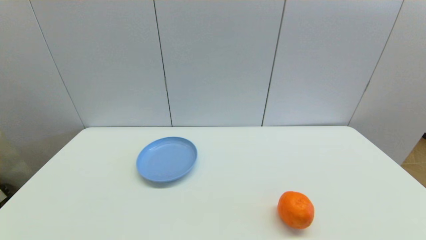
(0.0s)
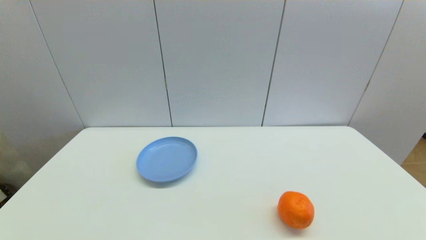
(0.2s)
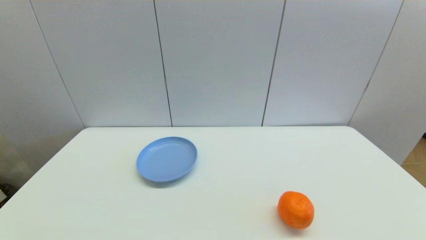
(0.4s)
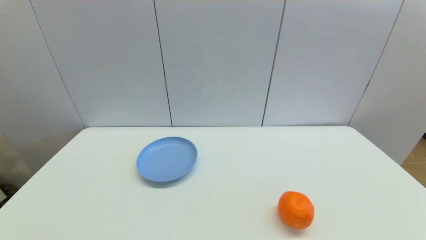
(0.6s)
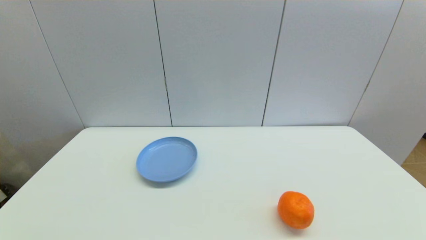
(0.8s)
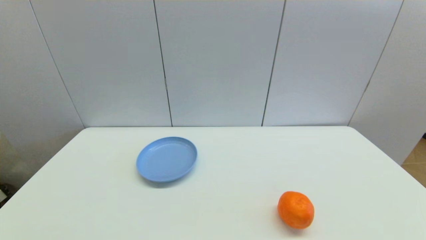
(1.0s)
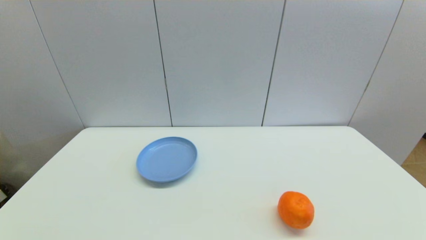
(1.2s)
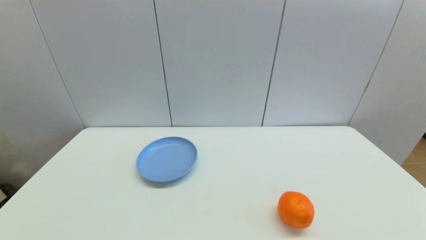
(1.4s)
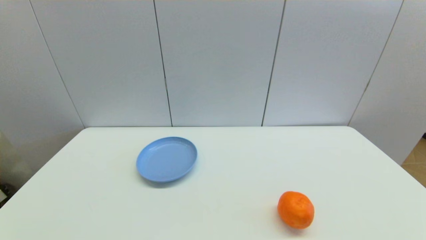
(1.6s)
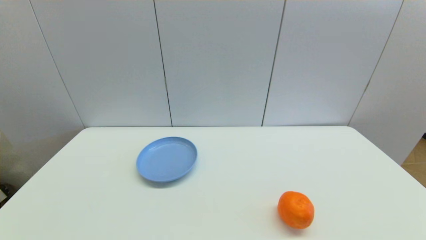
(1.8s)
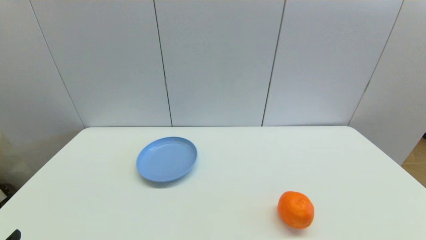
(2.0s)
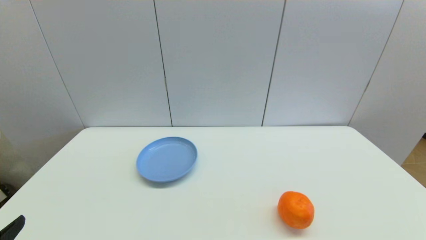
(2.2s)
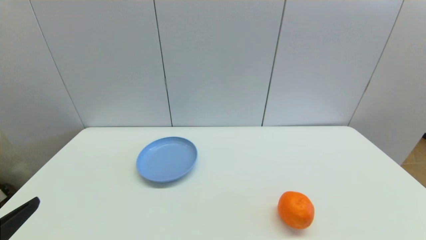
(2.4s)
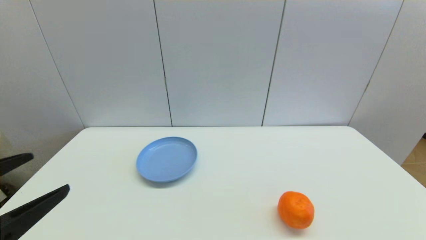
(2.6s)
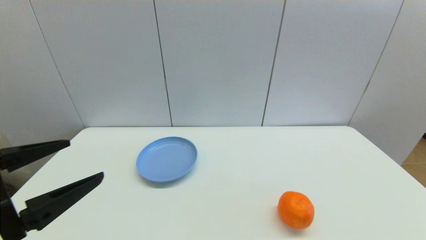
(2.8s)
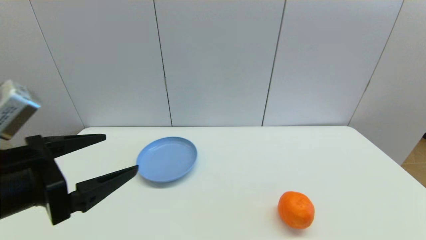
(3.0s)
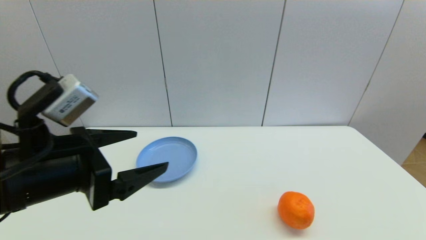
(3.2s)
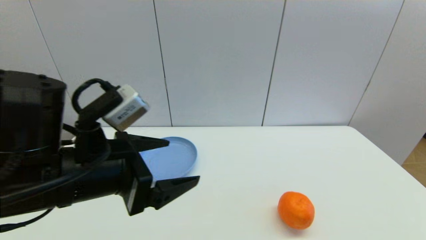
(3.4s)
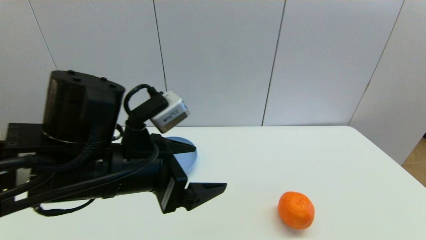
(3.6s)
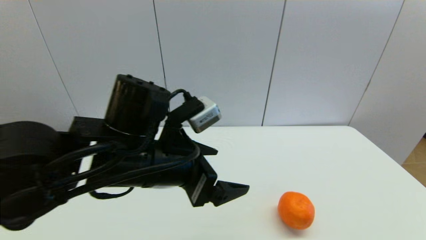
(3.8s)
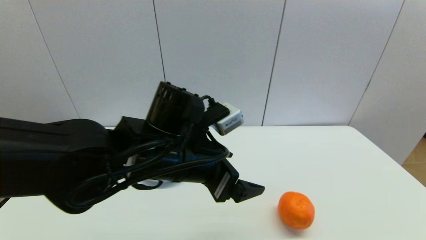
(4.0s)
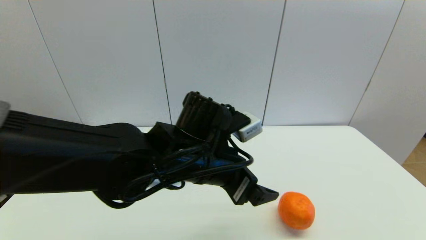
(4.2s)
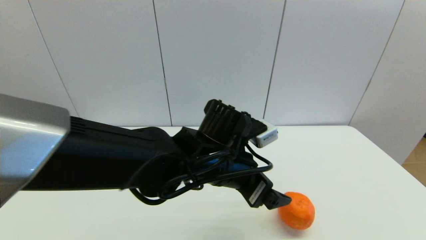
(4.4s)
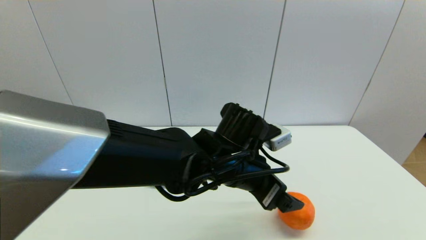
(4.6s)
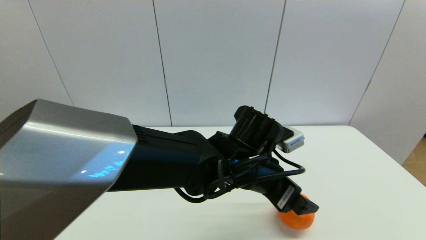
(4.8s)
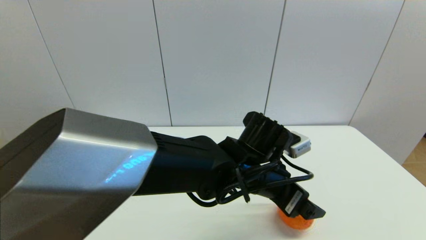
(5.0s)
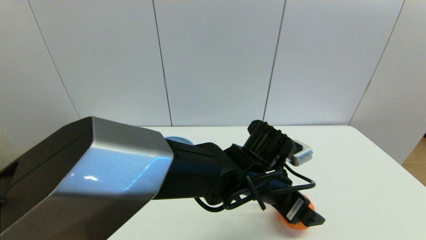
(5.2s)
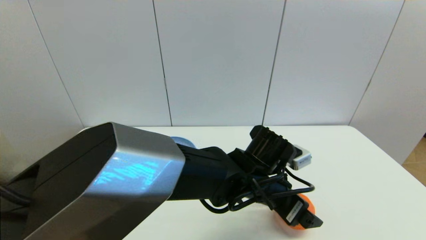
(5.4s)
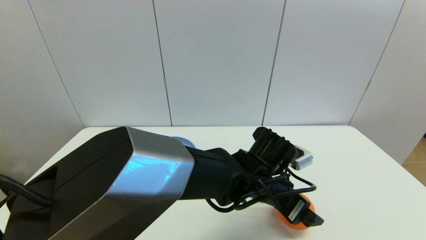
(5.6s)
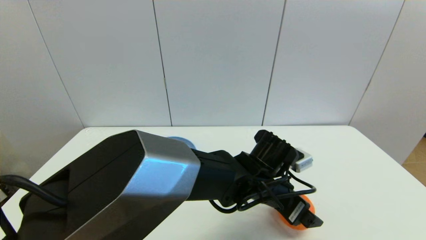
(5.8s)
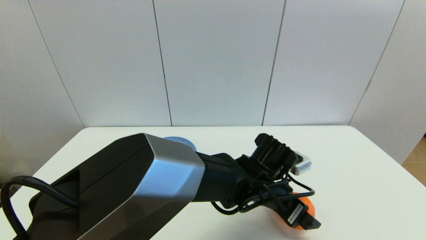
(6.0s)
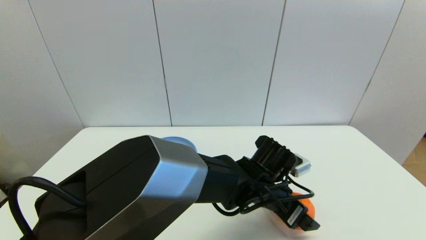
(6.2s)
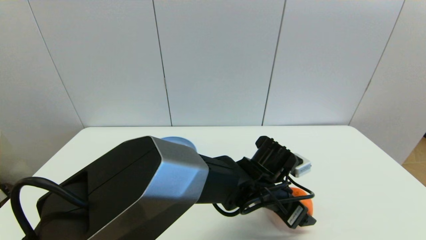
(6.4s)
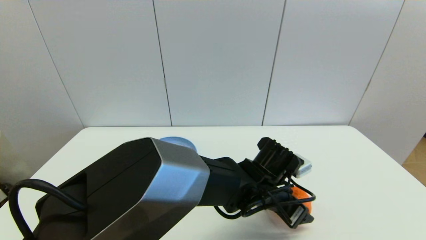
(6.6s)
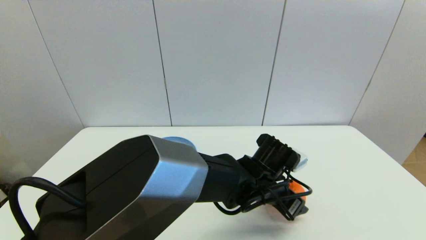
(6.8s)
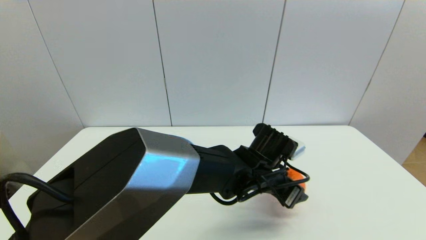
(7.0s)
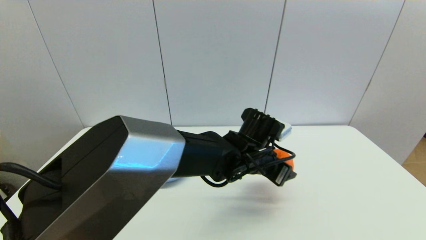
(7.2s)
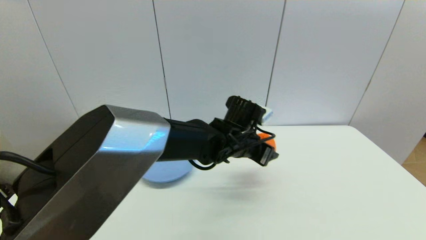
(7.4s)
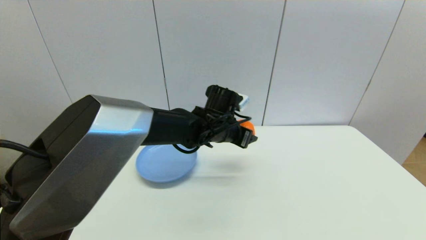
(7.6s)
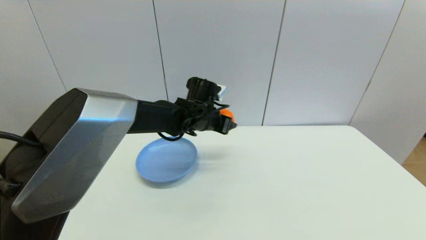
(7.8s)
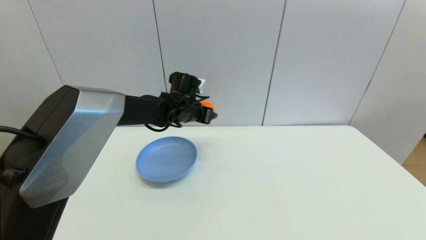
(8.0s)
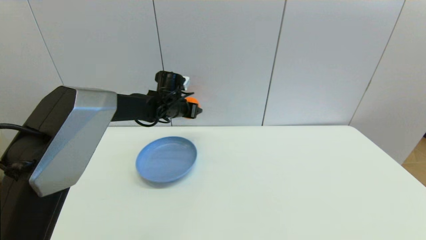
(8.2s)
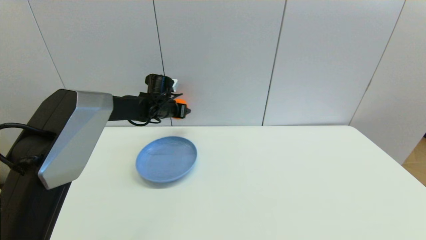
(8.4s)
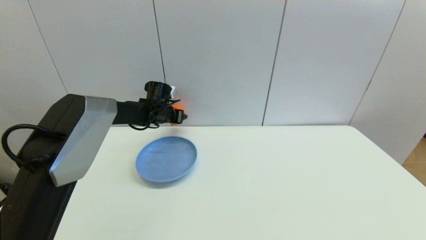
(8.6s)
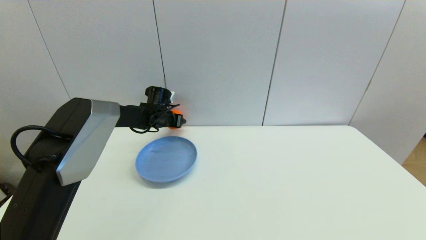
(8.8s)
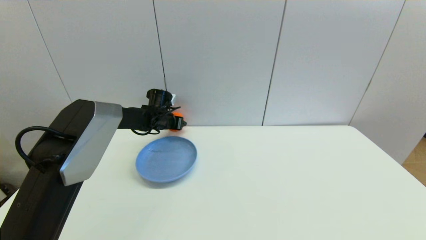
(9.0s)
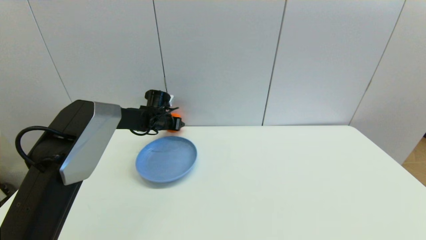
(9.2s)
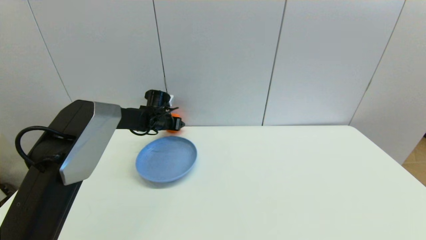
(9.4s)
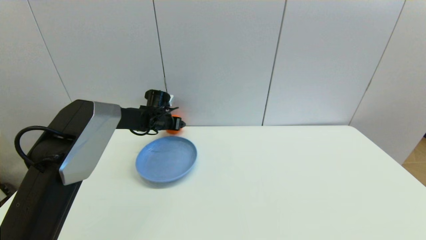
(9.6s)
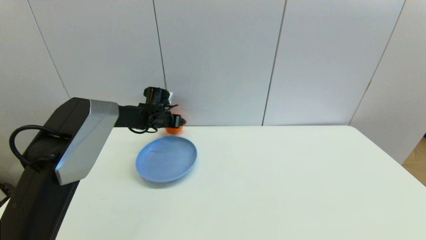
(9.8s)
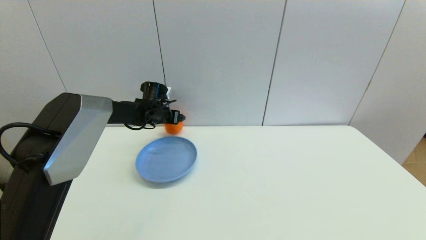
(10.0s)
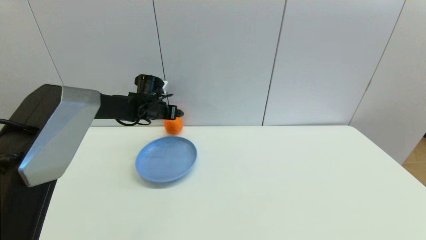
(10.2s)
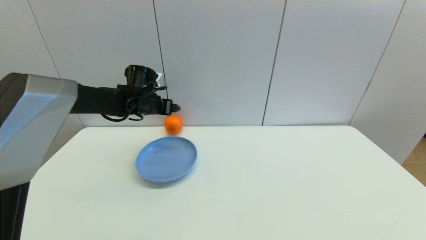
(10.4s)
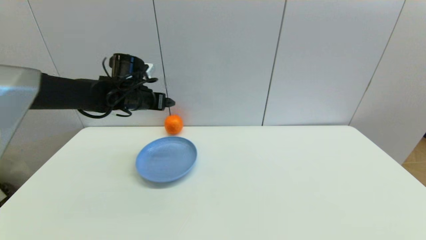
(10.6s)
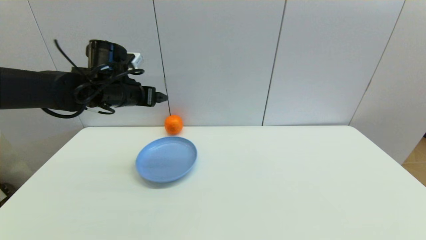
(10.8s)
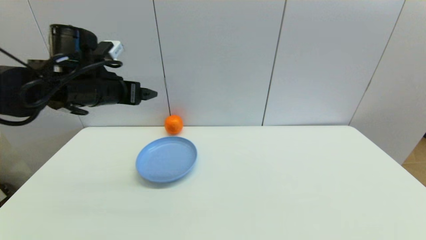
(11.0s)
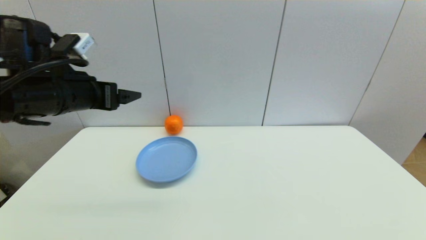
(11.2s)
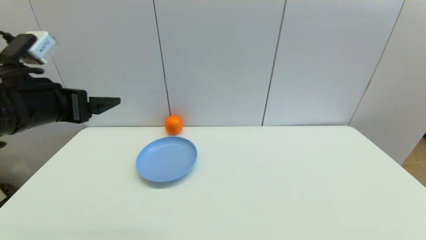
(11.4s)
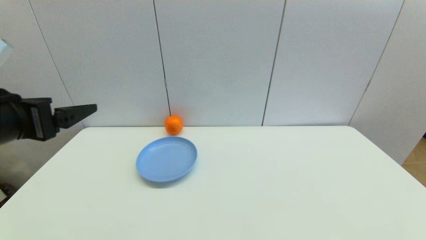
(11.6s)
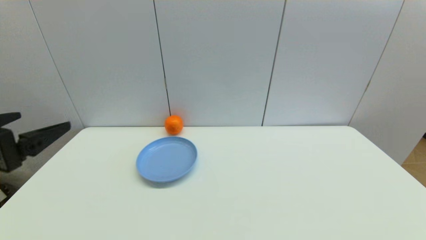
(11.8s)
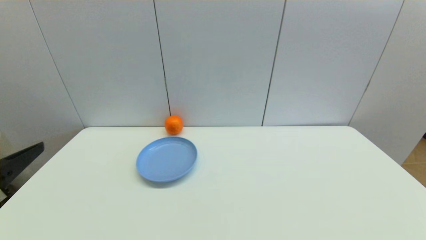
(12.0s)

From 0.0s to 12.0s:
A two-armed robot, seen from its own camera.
Step, from 2.0s to 6.6s: Grasp the orange with left gripper.
Step, from 6.8s to 9.8s: Place the orange on the table with left gripper.
From 0.0s to 1.6s: Neither gripper changes place.
From 1.6s to 3.0s: The left gripper moves upward, forward and to the right, approximately 20 cm.
From 3.0s to 4.4s: The left gripper moves to the right and forward, some 25 cm.
From 4.4s to 6.0s: The left gripper goes some 10 cm to the right and downward.
From 6.0s to 7.6s: The left gripper travels forward, to the left and upward by approximately 15 cm, and closes its fingers.
From 7.6s to 9.0s: The left gripper goes approximately 20 cm to the left and forward.
From 9.0s to 10.4s: The left gripper shifts some 10 cm upward and backward, and opens up.
From 10.4s to 12.0s: The left gripper is displaced backward by approximately 35 cm.

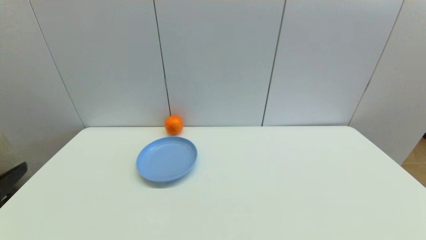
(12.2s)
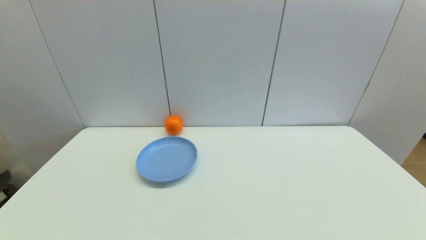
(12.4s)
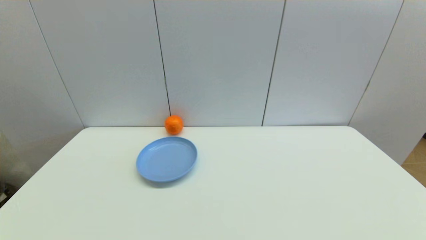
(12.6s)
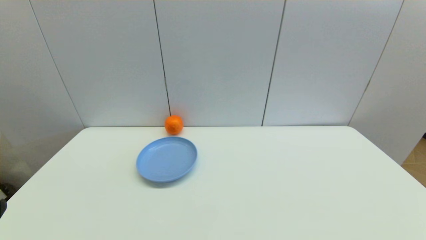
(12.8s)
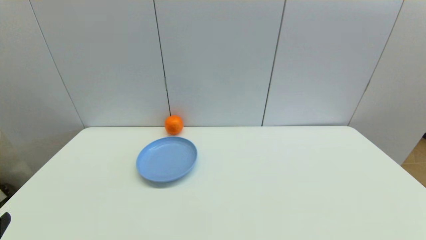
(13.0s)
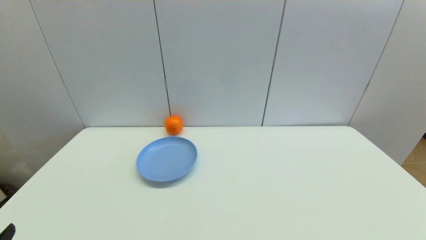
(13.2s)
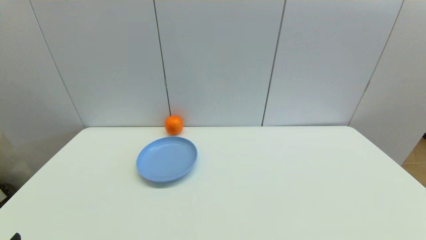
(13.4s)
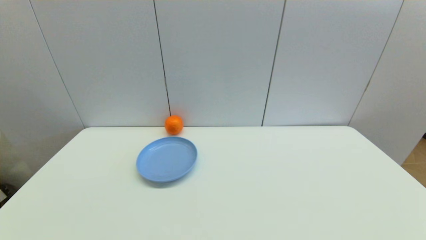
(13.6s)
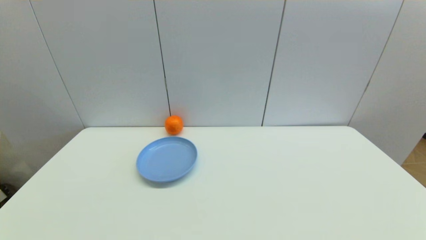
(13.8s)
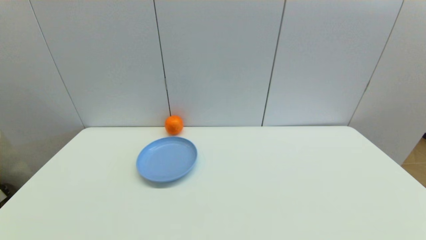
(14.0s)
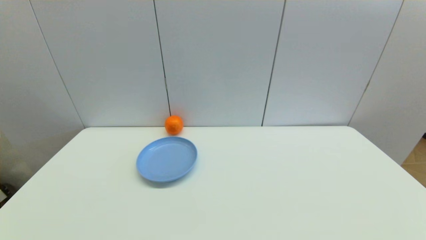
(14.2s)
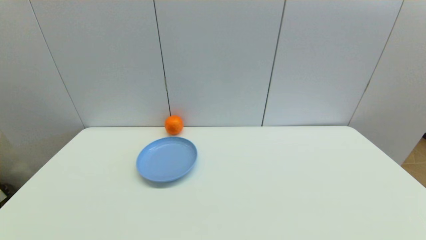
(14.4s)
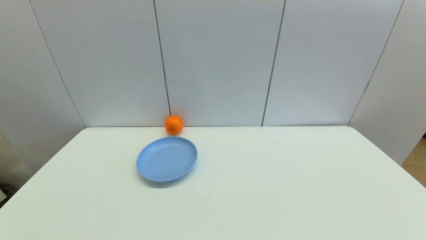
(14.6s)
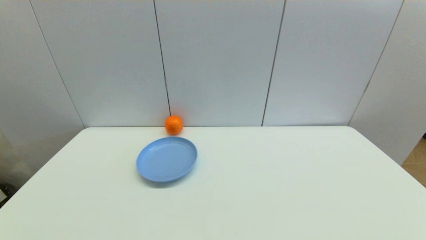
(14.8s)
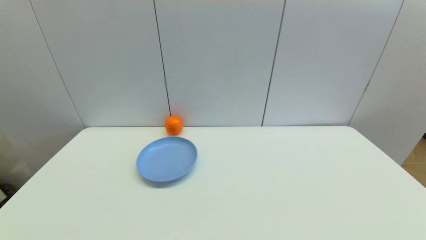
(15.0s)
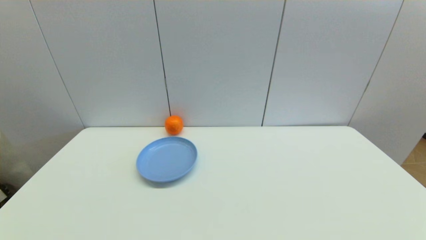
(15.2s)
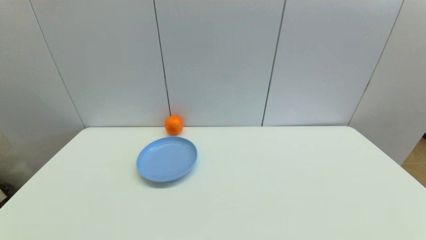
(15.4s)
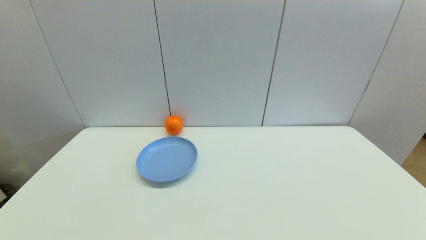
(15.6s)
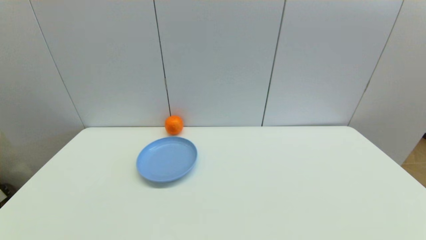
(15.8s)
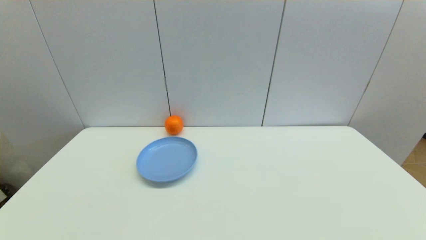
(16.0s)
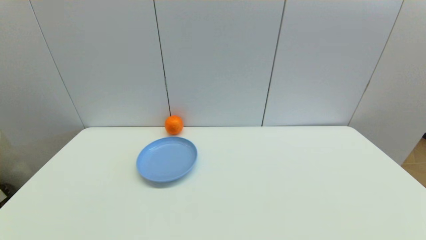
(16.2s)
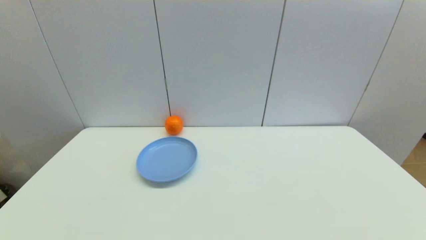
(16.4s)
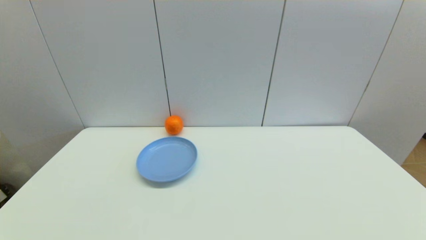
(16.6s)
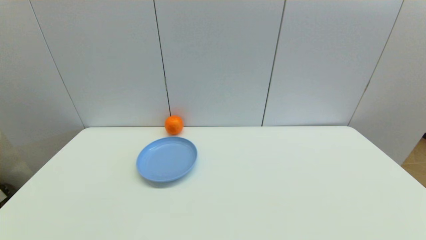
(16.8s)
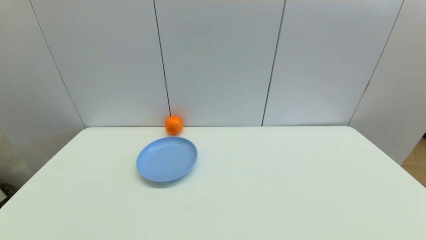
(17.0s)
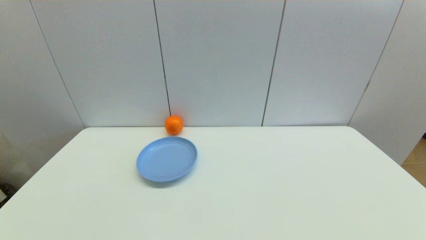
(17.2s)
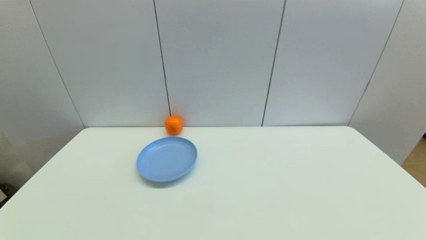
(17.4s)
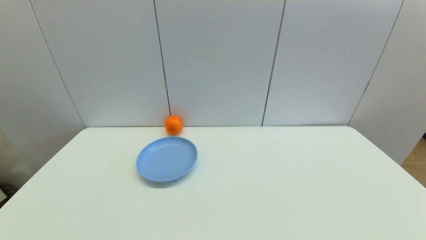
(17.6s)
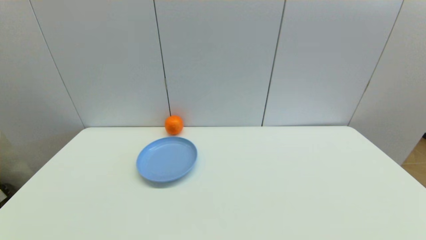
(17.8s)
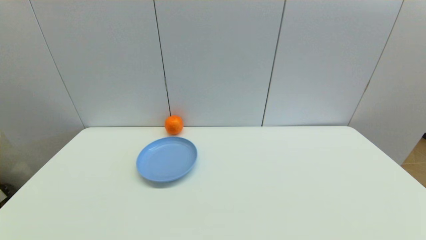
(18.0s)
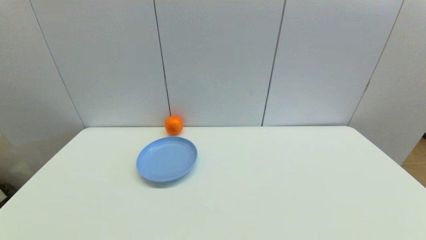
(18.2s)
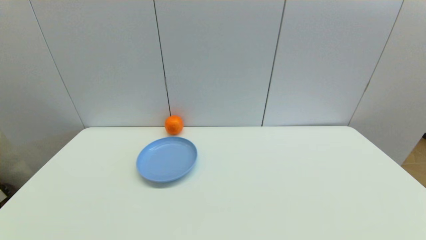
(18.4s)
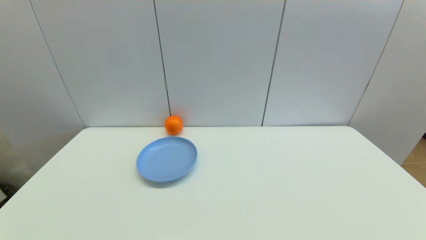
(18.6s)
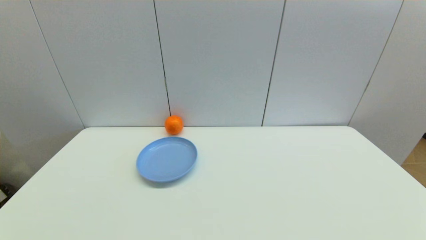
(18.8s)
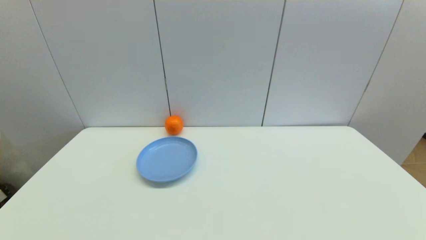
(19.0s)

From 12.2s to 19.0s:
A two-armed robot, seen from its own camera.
From 15.0s to 19.0s: Both grippers stay put.
